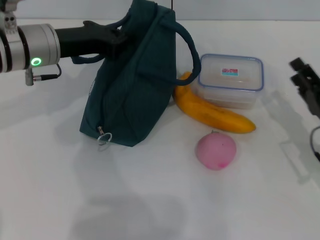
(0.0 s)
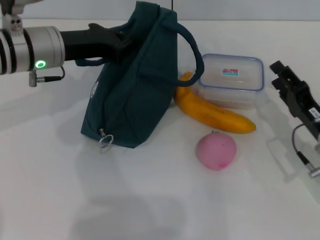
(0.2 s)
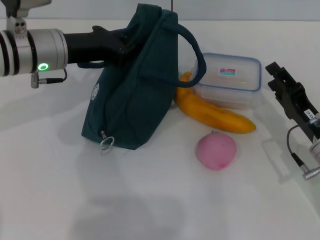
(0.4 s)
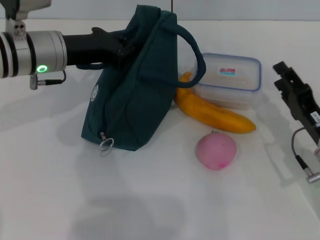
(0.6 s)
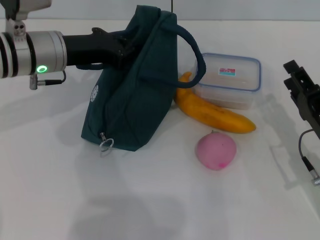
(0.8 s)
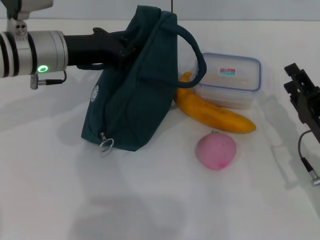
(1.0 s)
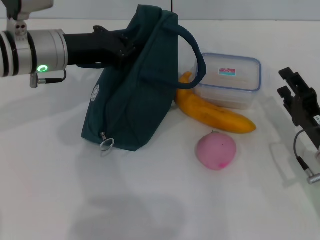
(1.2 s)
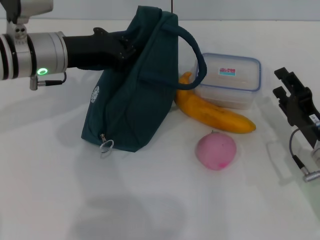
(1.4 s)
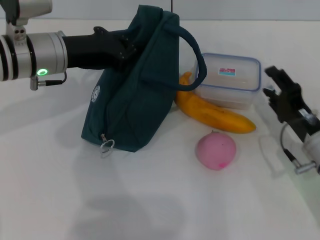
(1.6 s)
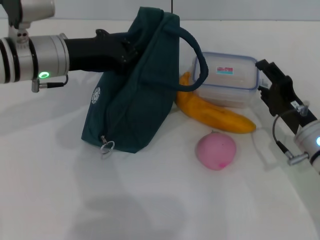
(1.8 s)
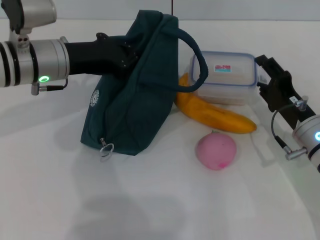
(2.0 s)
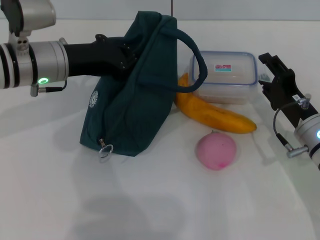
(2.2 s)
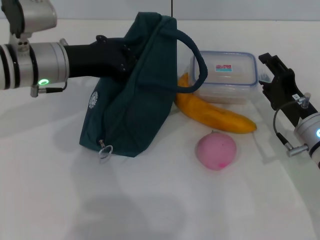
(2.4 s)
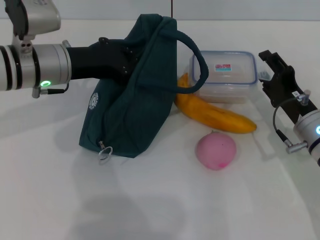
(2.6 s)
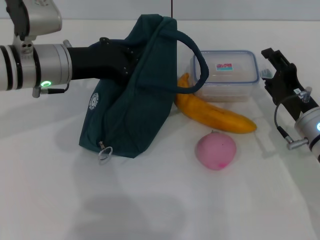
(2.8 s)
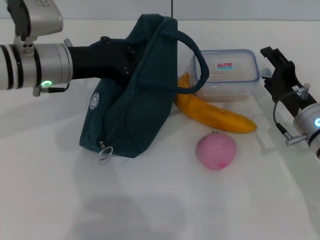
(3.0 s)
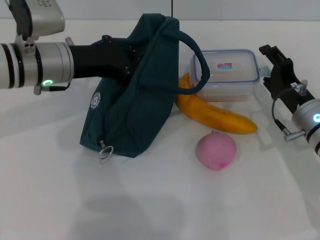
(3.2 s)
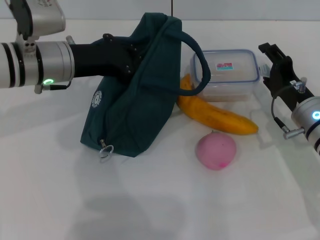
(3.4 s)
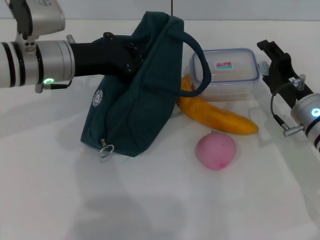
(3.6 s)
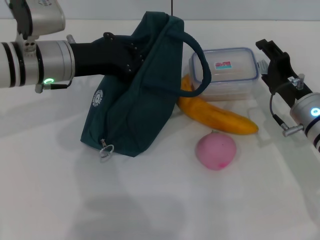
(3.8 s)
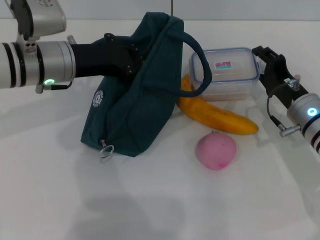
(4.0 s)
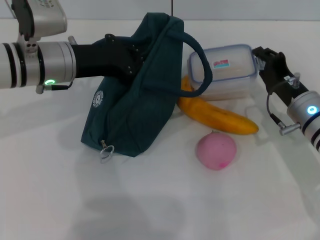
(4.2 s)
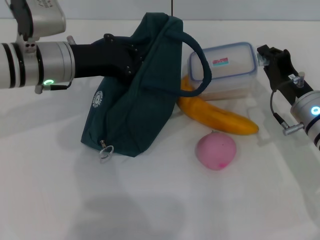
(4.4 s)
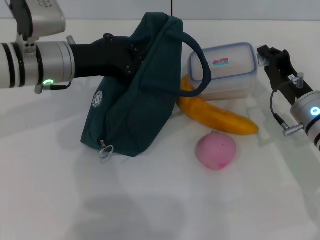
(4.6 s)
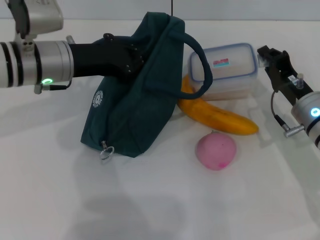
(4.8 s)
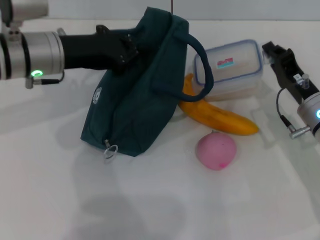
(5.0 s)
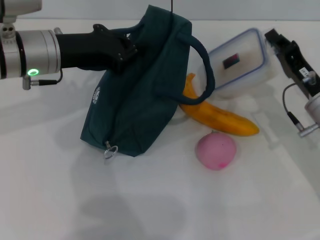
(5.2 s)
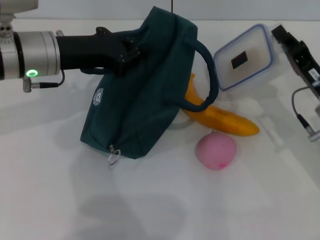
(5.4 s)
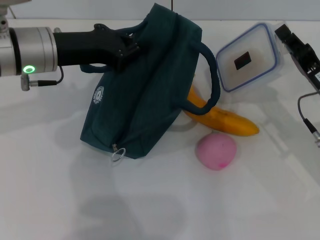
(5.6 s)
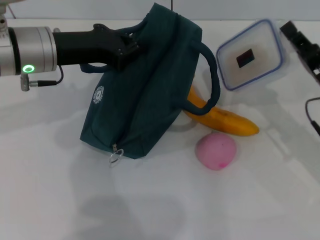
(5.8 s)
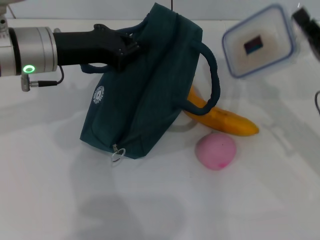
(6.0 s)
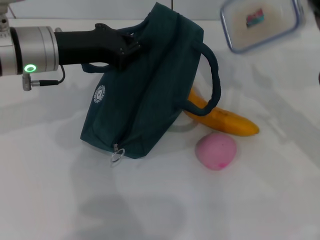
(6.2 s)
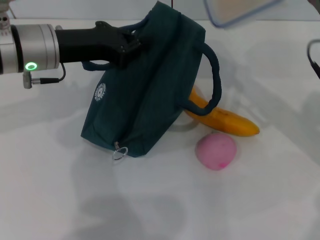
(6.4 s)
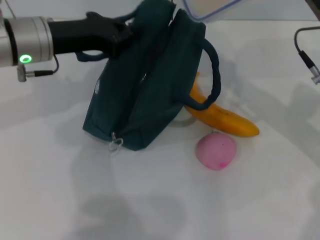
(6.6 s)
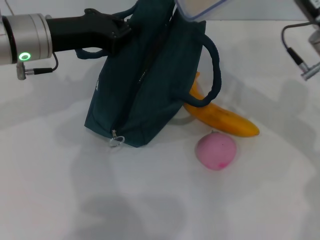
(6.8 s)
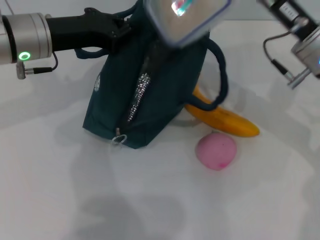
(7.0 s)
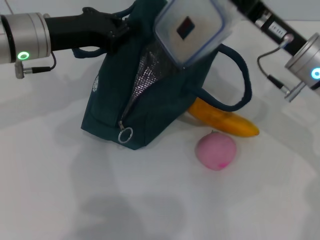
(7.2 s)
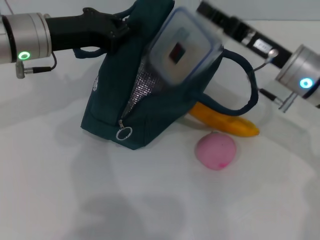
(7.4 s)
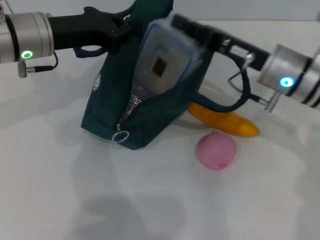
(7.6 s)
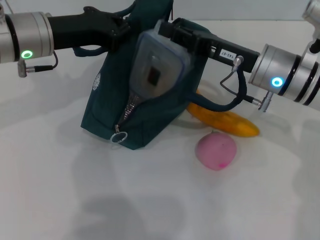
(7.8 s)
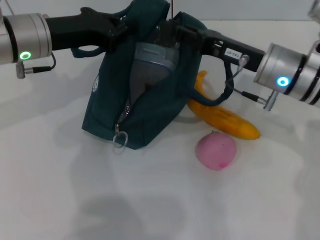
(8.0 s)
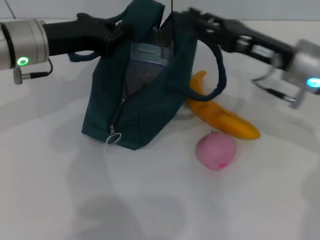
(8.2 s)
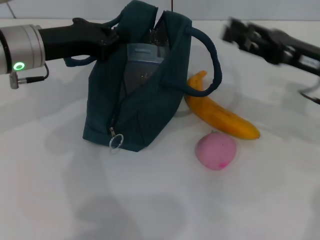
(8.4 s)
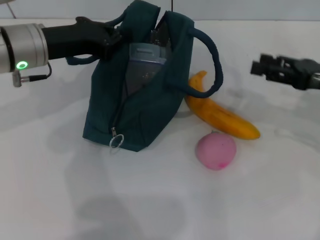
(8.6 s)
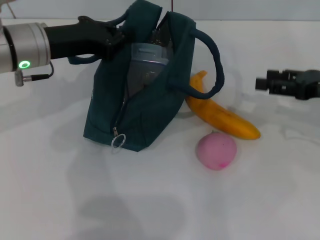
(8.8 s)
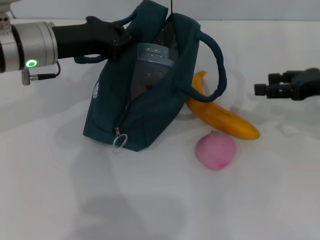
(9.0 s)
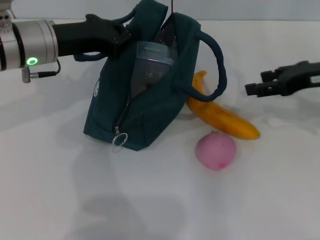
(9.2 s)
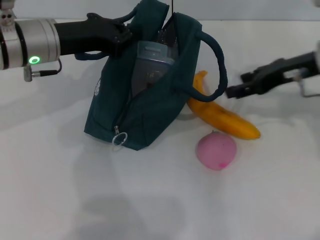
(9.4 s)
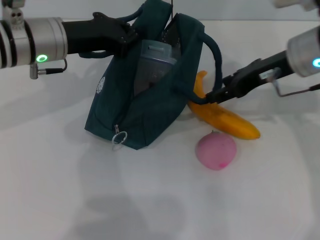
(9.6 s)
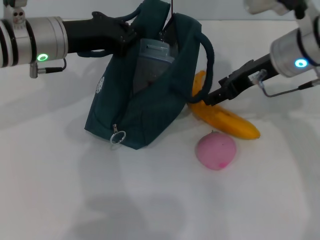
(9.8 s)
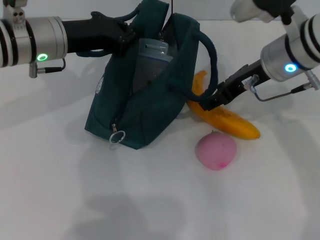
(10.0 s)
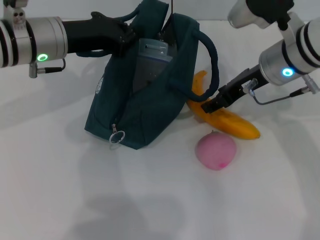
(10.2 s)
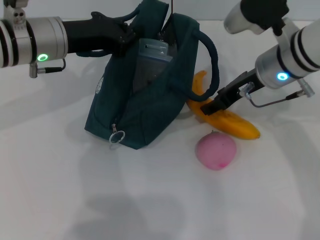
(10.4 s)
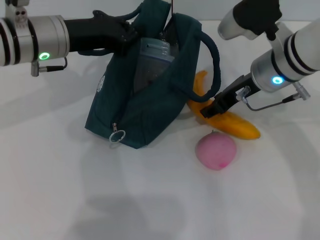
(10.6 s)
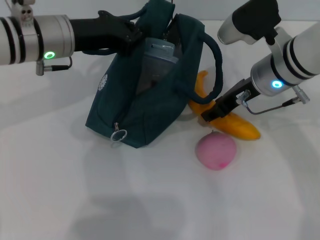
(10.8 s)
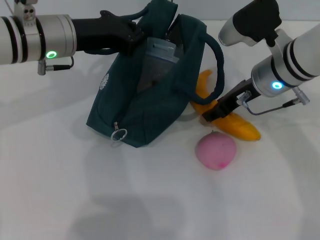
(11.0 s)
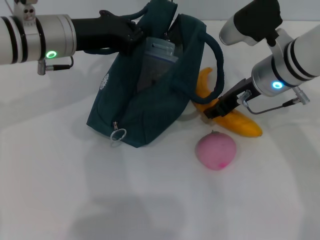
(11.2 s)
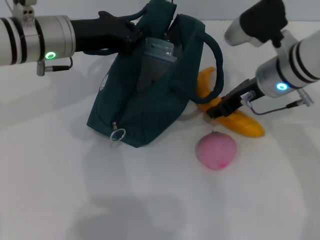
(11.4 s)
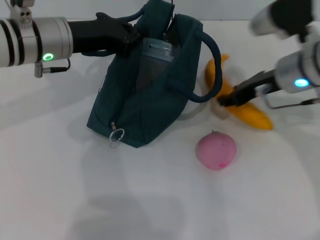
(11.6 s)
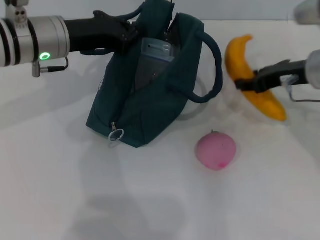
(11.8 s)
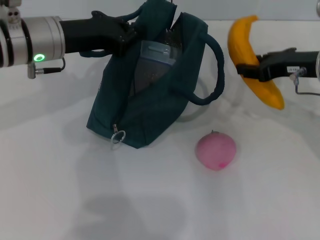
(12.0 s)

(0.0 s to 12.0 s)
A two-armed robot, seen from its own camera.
Step, 0.2 s - 4.8 s: Pick up the lunch box with your right hand.
Step, 5.0 s - 8.4 s: Place the lunch box into the lunch bag with your right hand.
Step, 8.6 s - 11.2 s: Take the banana with your right hand.
0.0 s - 1.6 s: The grippers stay close to where they were, moving slightly.
1.6 s - 3.0 s: The grippers make only small movements.
3.0 s - 4.4 s: The grippers move only a little.
4.4 s - 6.0 s: The right gripper moves about 5 cm.
6.0 s - 7.6 s: The right gripper heads to the left and forward, covering about 10 cm.
7.6 s - 9.0 s: The right gripper shifts about 15 cm to the right, and opens.
9.0 s - 10.4 s: The right gripper shifts about 15 cm to the left.
10.4 s - 12.0 s: The right gripper goes some 10 cm to the right, and closes its fingers.

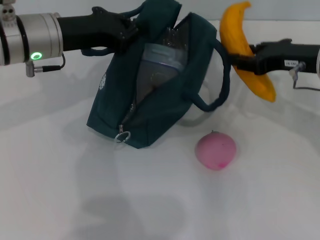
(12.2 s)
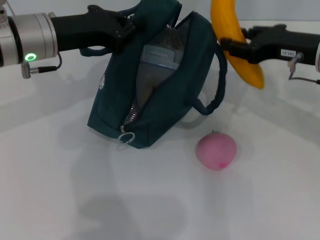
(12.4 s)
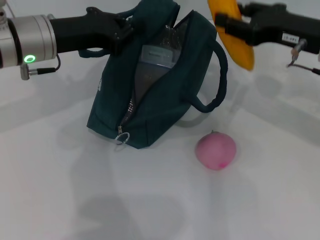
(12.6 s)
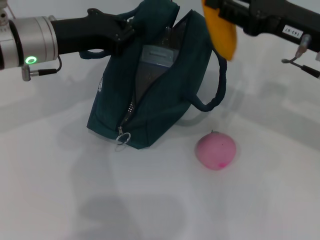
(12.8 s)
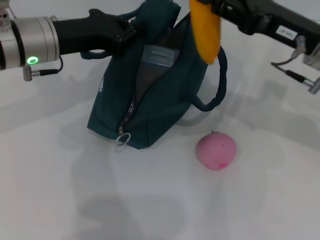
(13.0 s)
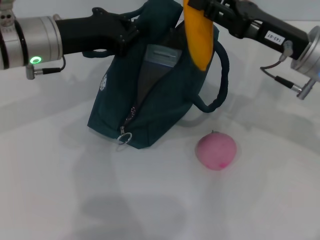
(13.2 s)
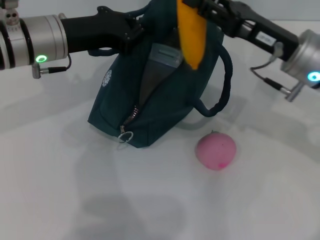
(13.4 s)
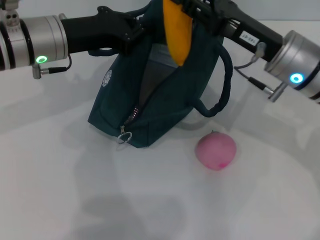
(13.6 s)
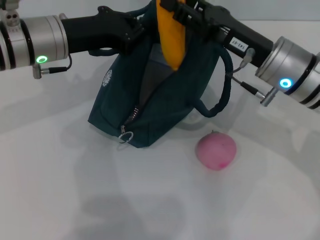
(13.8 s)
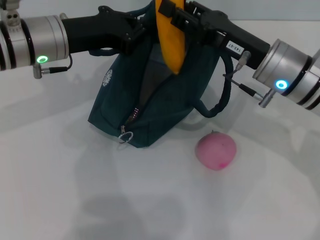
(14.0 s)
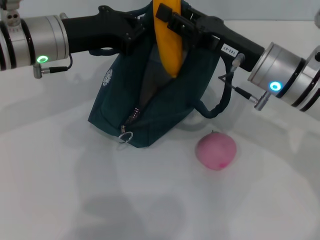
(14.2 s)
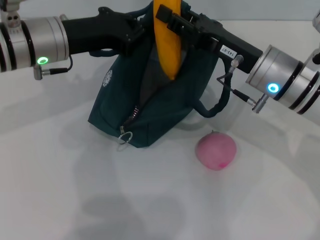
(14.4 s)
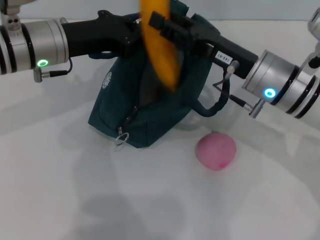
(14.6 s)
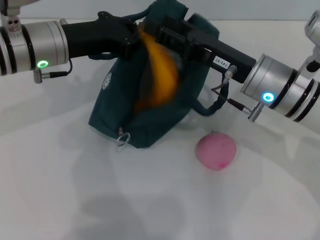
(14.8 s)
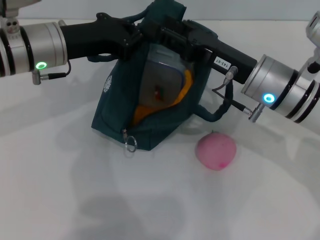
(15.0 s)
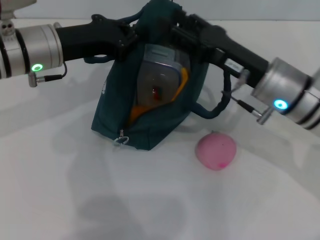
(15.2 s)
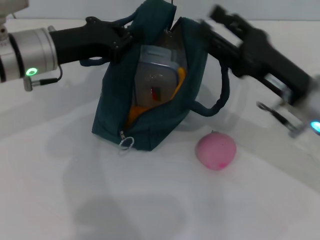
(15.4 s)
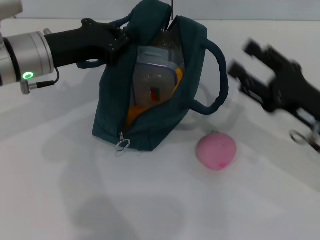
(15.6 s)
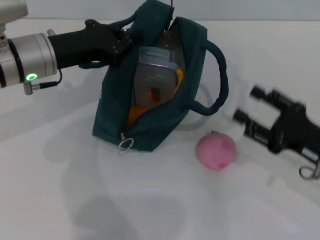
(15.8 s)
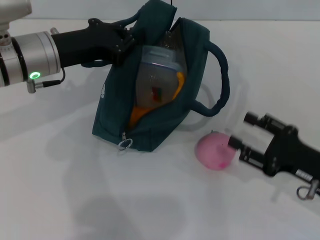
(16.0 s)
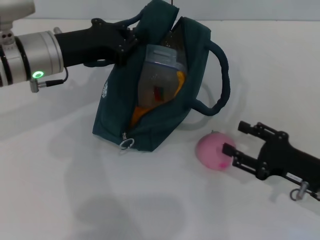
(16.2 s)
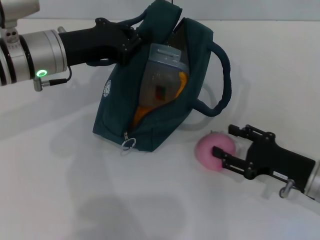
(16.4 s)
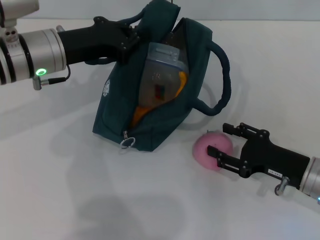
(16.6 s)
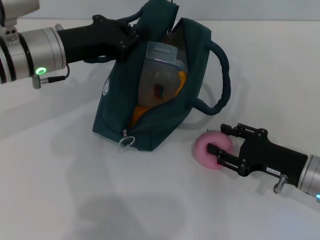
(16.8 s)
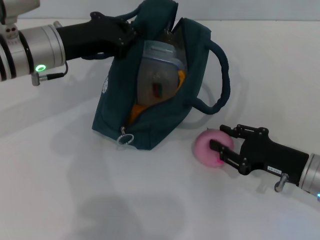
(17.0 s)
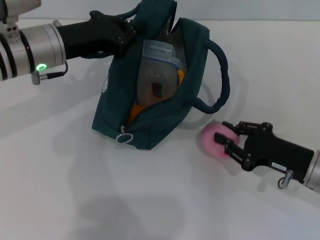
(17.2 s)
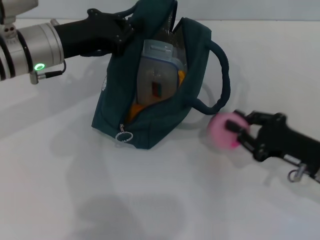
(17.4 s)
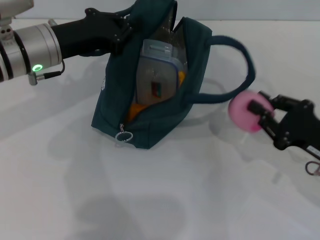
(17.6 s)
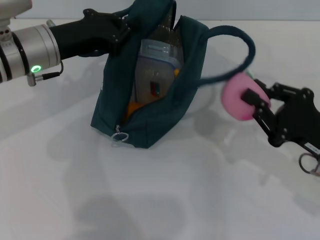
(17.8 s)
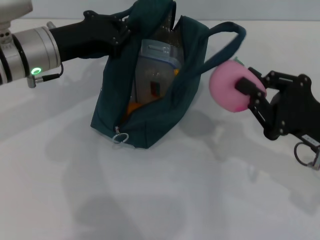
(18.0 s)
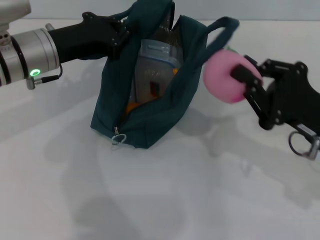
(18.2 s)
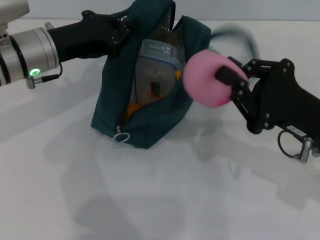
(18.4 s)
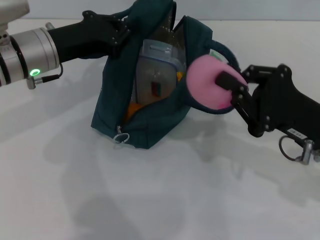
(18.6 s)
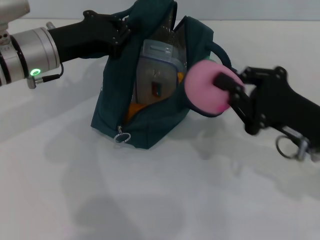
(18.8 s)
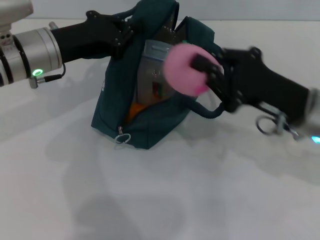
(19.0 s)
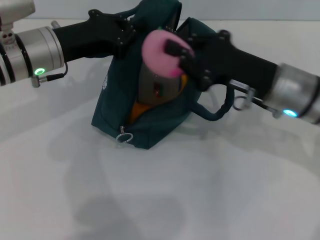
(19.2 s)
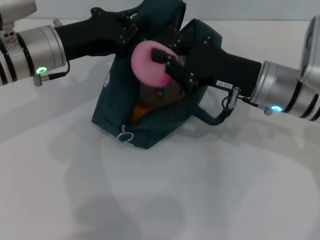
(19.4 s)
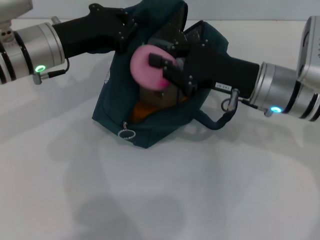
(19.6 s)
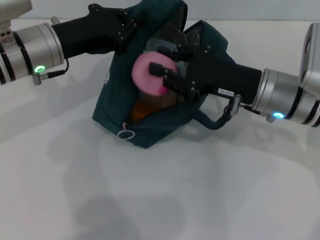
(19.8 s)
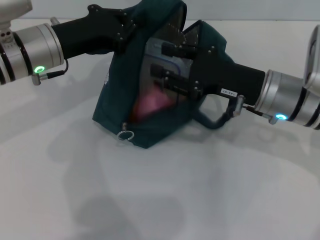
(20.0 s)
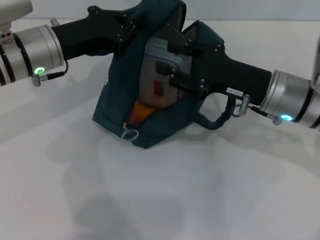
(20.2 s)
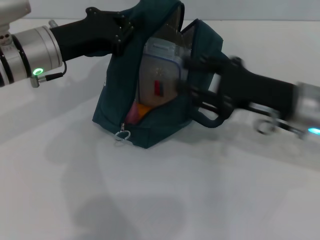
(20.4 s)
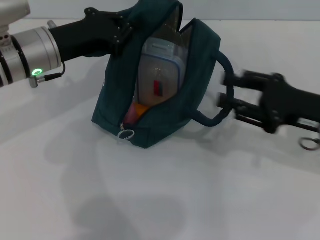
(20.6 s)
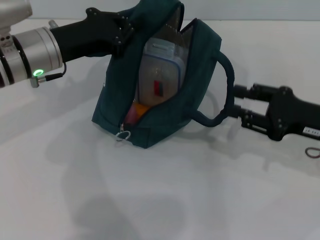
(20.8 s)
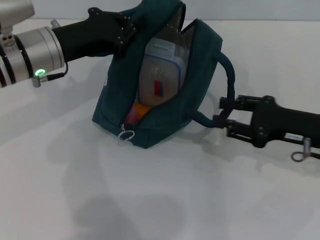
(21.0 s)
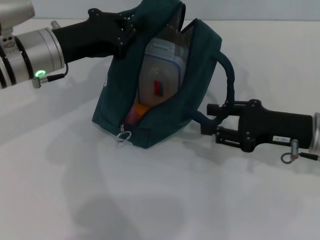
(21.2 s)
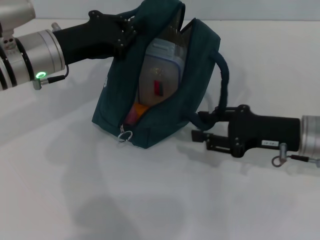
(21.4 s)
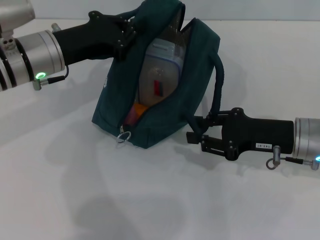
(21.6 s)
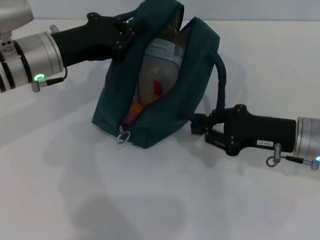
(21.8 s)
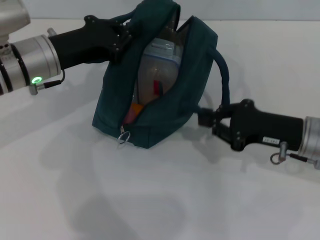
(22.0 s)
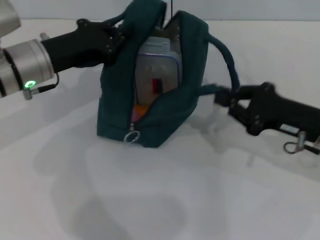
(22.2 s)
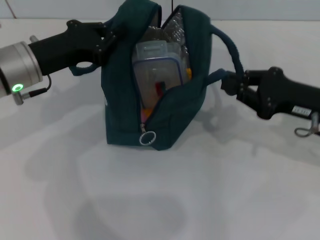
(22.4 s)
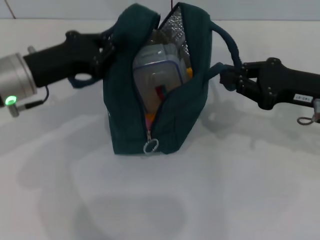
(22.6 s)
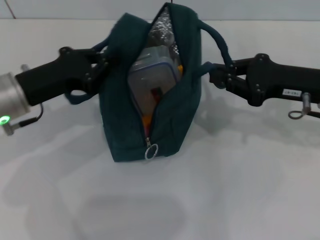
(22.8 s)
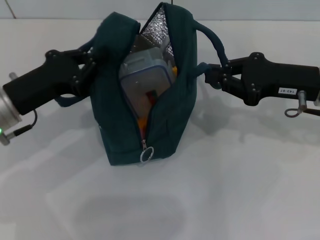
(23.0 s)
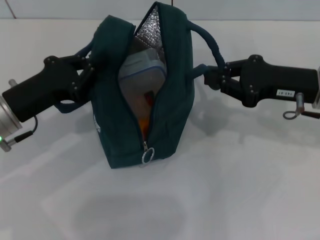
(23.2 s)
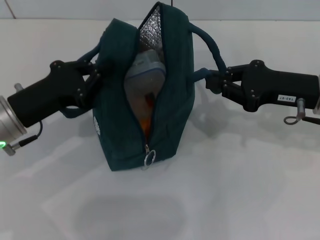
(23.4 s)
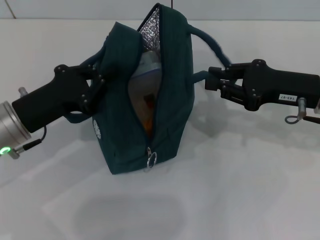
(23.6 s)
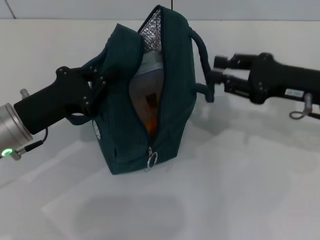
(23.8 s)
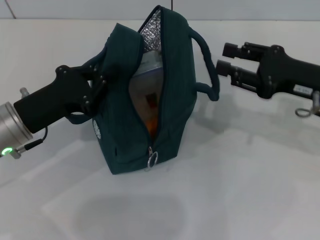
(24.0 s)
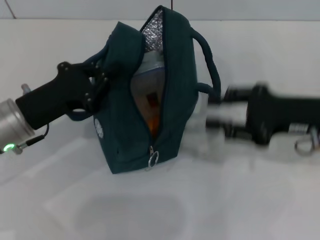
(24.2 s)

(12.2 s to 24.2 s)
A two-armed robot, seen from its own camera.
Step, 12.2 s - 15.4 s: Put the banana into the lunch bag with your right hand.
Step, 15.6 s - 17.0 s: Grab the peach with your right hand.
Step, 20.2 s - 24.0 s: Hold the lunch bag with your right hand.
12.2 s - 13.8 s: The right gripper goes some 5 cm to the left.
13.8 s - 15.2 s: The right gripper opens its fingers.
15.2 s - 16.6 s: The right gripper shifts some 15 cm downward, to the right and backward.
16.6 s - 18.2 s: The right gripper is displaced upward by roughly 10 cm, and closes its fingers.
18.2 s - 19.8 s: The right gripper travels forward and to the left by approximately 10 cm.
19.8 s - 21.2 s: The right gripper moves to the right, about 10 cm, and opens its fingers.
21.2 s - 22.6 s: The left gripper moves roughly 5 cm; the right gripper changes place by roughly 5 cm, and closes.
22.6 s - 24.2 s: The left gripper changes place by approximately 5 cm. Meanwhile the right gripper opens.
